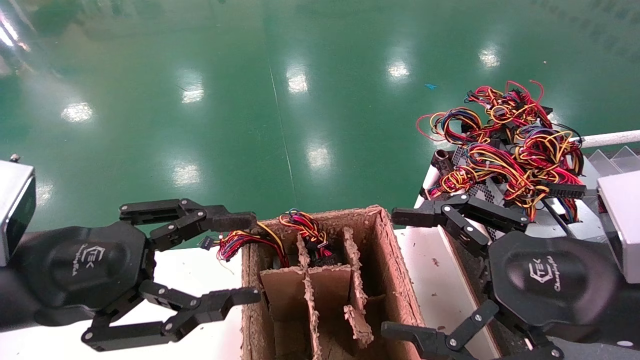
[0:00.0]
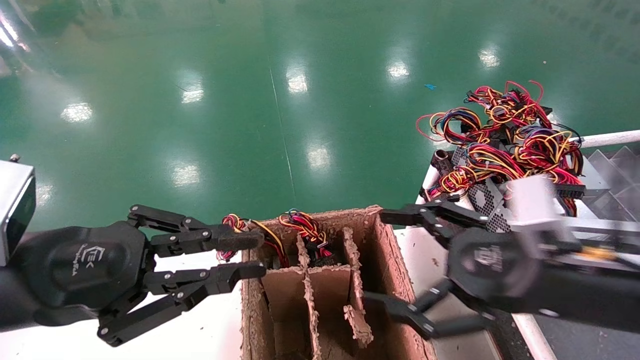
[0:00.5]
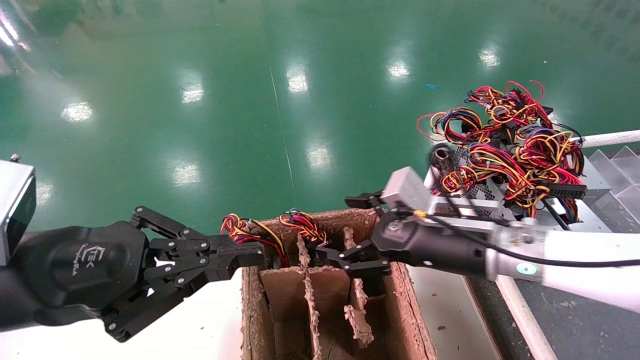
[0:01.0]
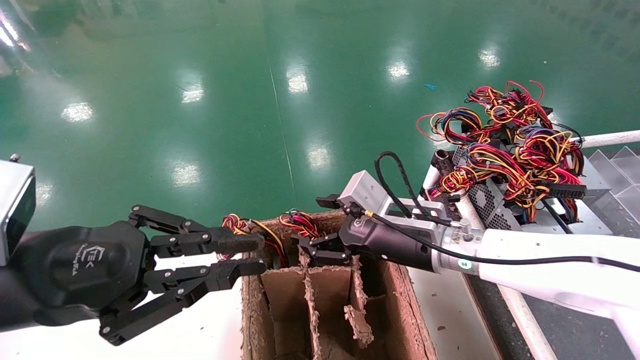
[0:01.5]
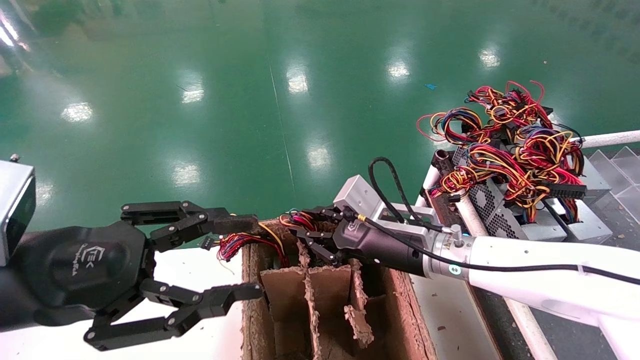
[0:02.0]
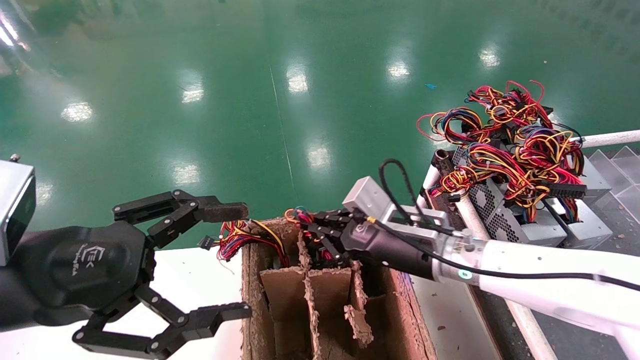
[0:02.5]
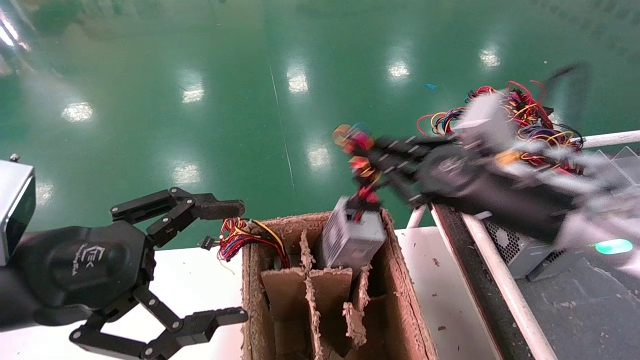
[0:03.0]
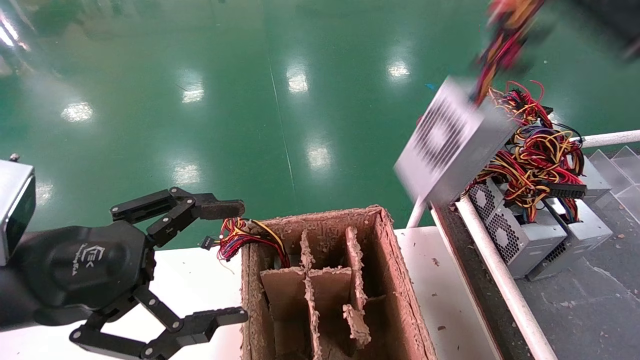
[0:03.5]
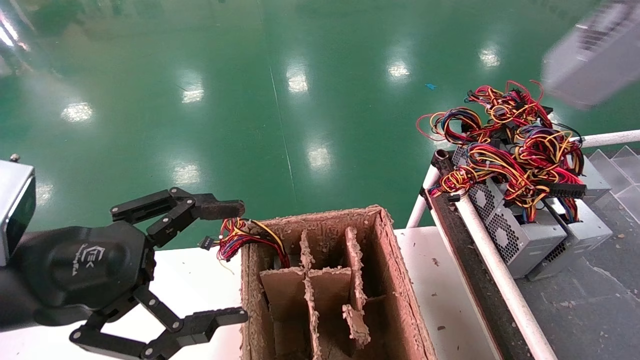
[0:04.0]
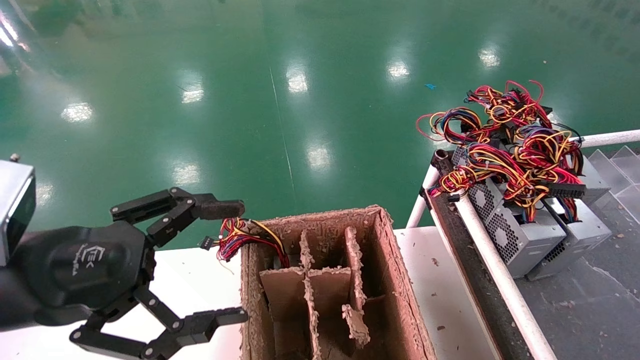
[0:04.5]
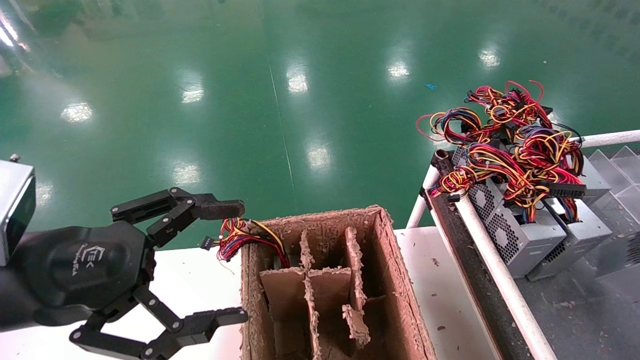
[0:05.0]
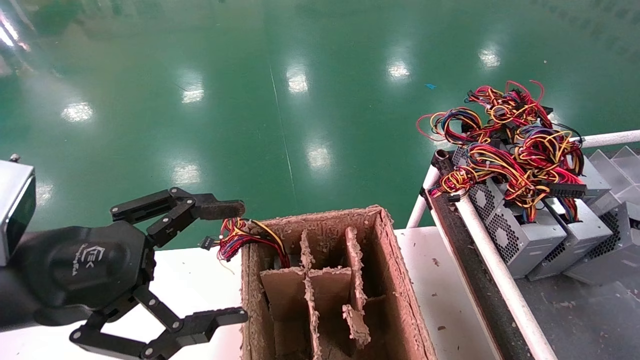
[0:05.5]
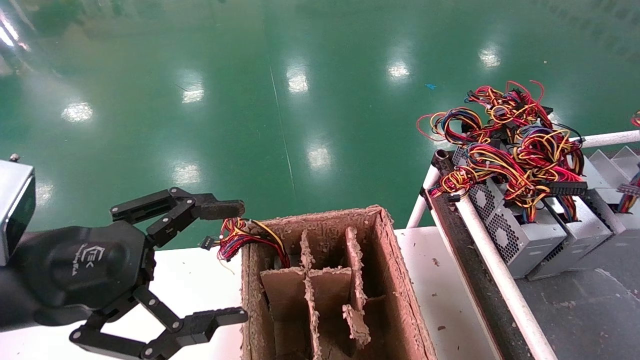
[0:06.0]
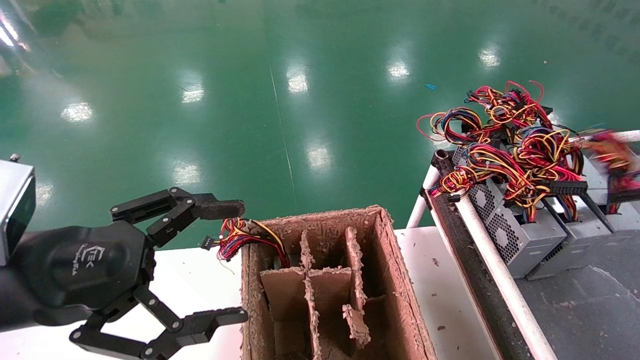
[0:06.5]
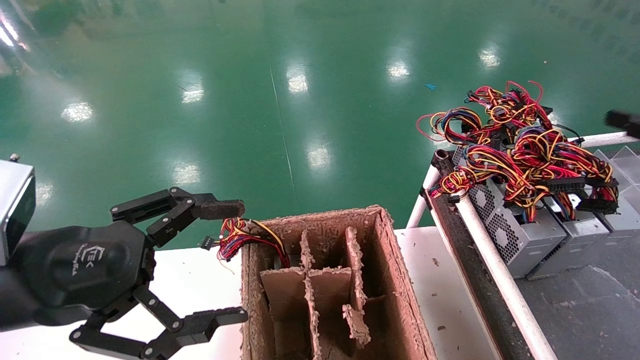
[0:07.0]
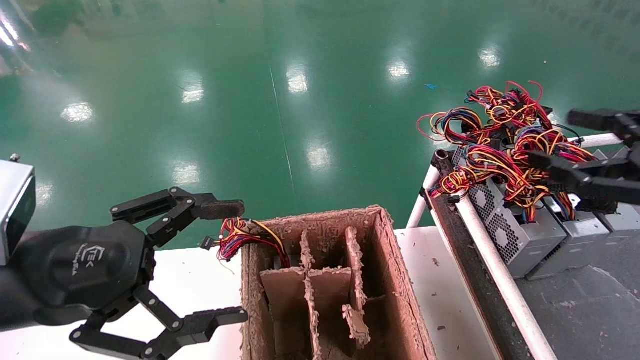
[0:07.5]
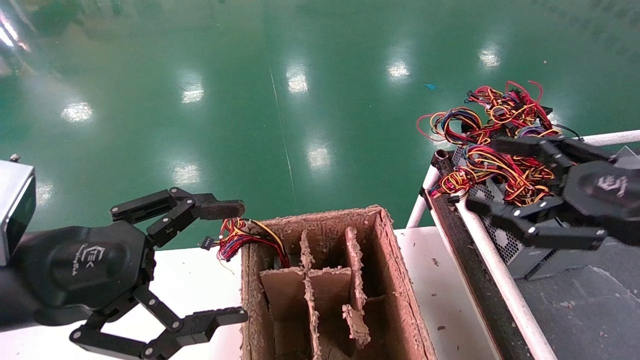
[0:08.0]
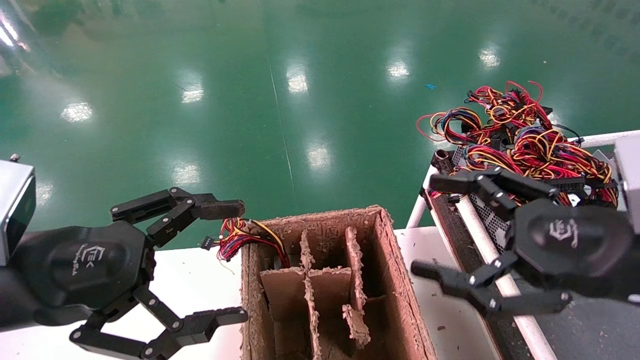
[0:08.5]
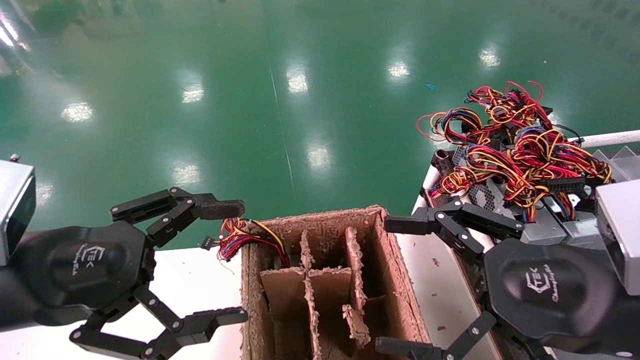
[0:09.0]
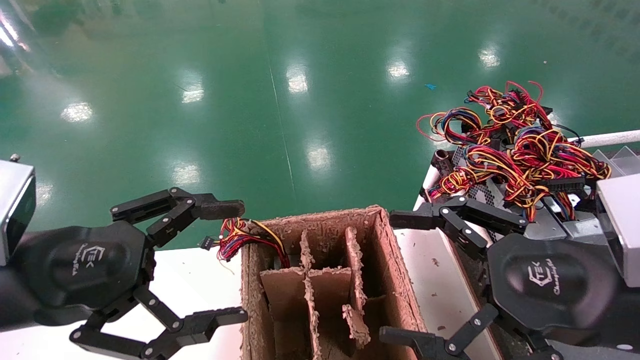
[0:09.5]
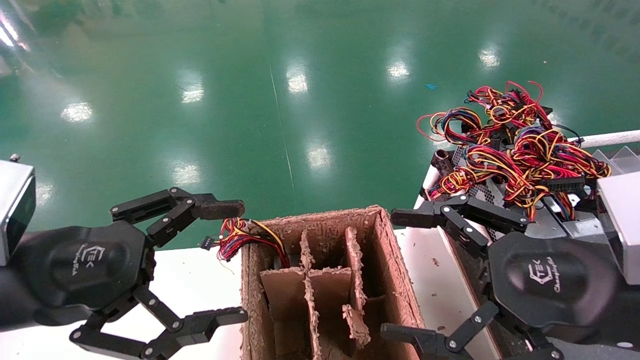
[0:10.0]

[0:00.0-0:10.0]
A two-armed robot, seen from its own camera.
Step, 0:01.0 to 0:03.0: Grab and lift the power supply from the large box.
Step, 0:03.5 to 0:06.5: Place the power supply on the operating table.
0:00.0 to 0:02.0: The left gripper closes, then reopens, while the right gripper is displaced forward and to the left by approximately 20 cm, and closes its fingers.
0:02.0 to 0:04.0: The left gripper opens up. The right gripper is displaced to the right, upward and backward by some 50 cm, and closes its fingers.
0:04.0 to 0:06.0: The right gripper moves downward and to the right, about 20 cm.
0:06.0 to 0:08.0: The right gripper goes about 15 cm to the left, and opens.
0:08.0 to 0:10.0: The right gripper is displaced to the left by roughly 10 cm.

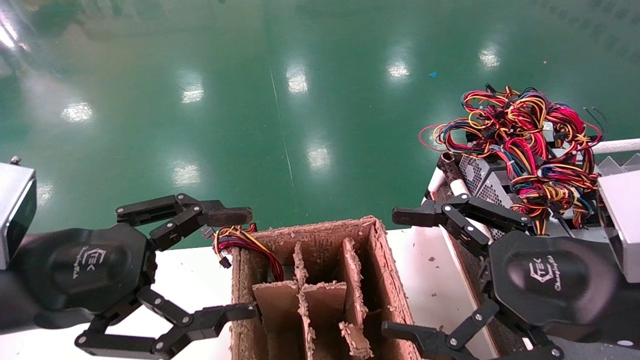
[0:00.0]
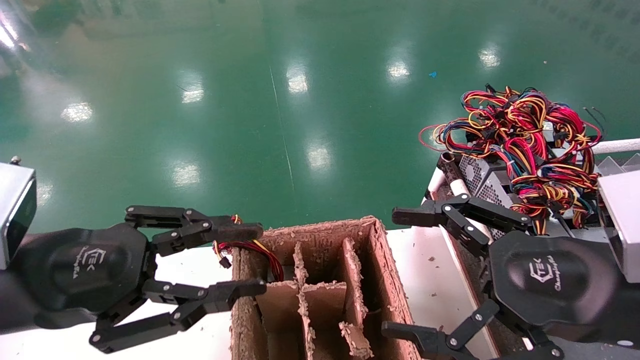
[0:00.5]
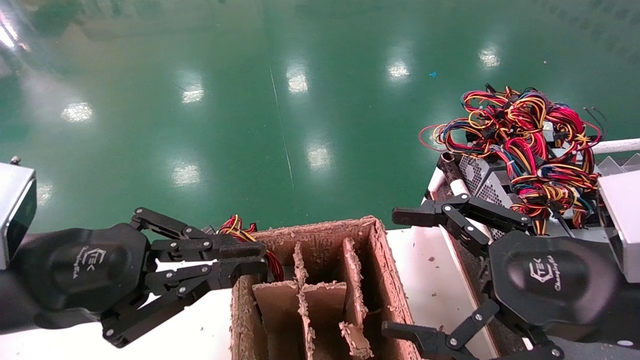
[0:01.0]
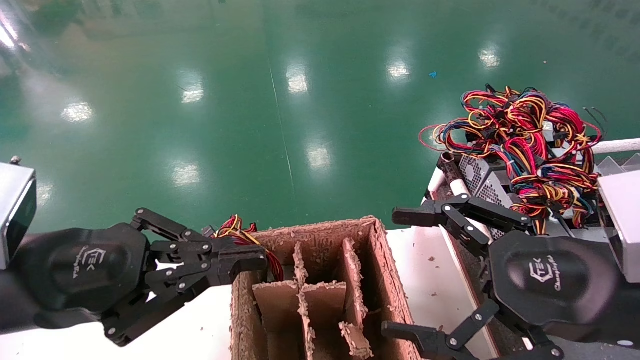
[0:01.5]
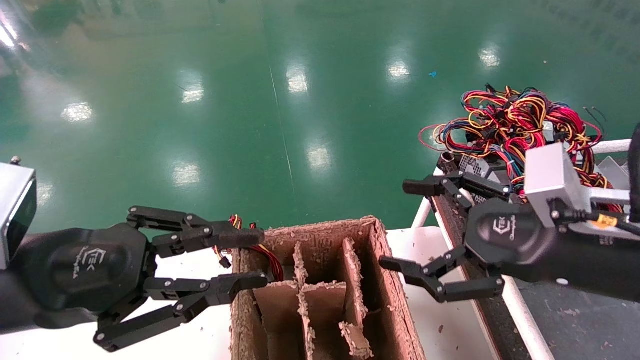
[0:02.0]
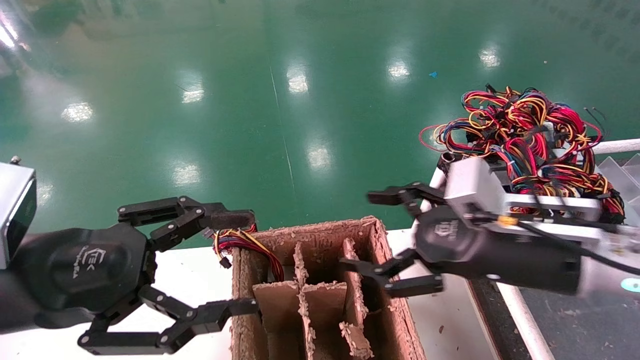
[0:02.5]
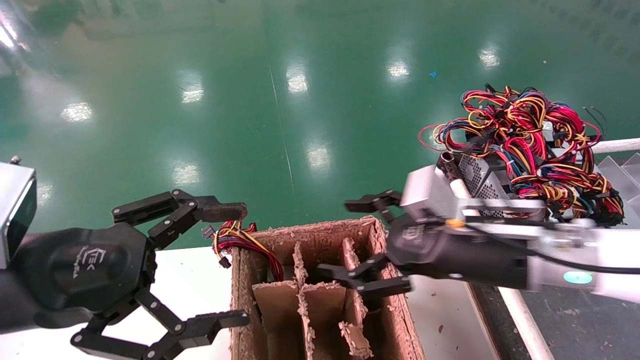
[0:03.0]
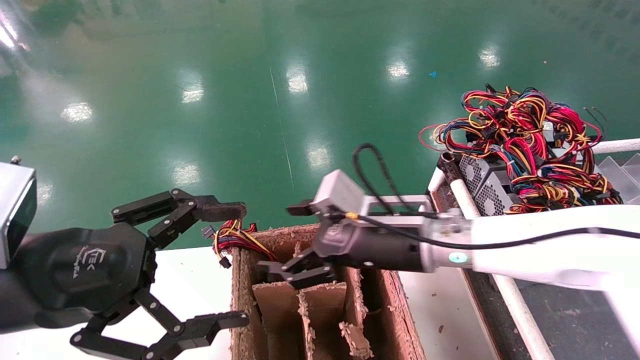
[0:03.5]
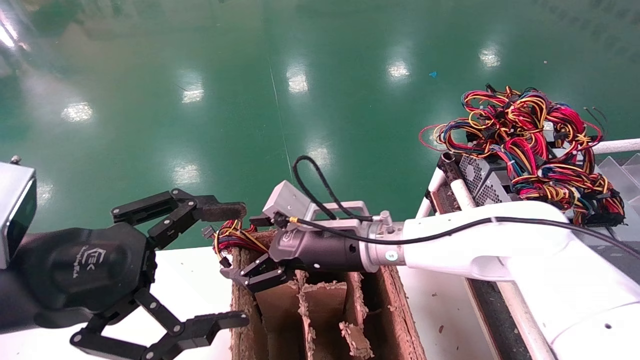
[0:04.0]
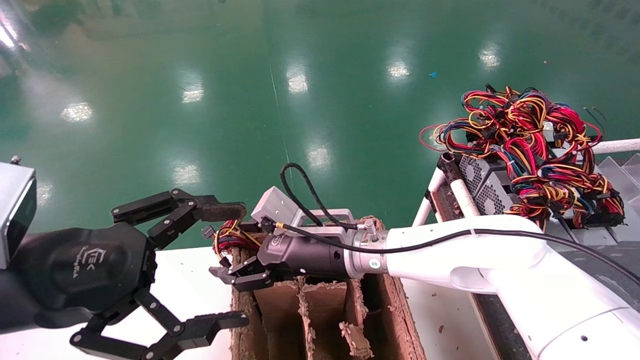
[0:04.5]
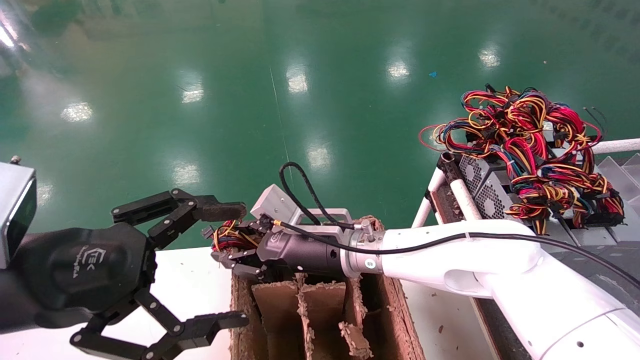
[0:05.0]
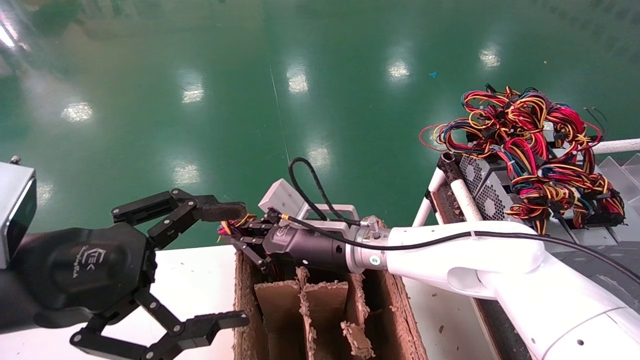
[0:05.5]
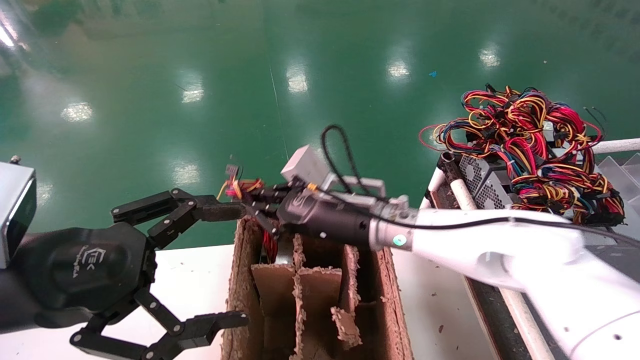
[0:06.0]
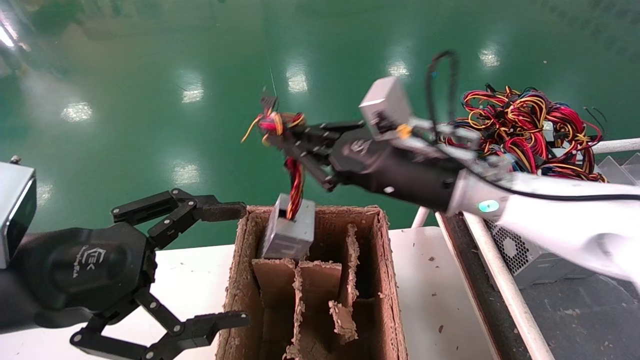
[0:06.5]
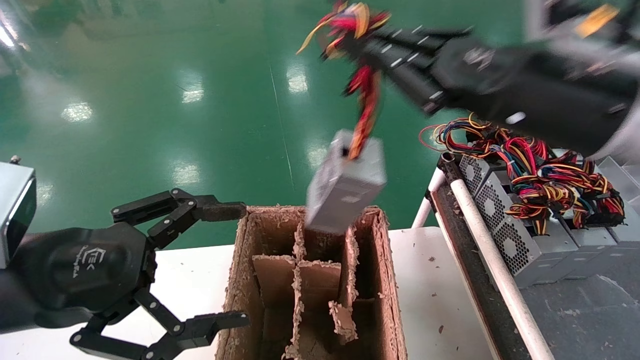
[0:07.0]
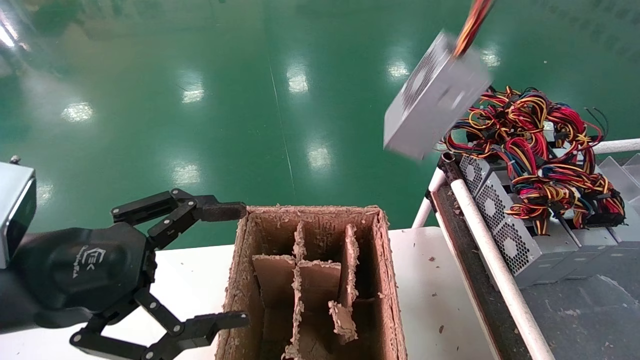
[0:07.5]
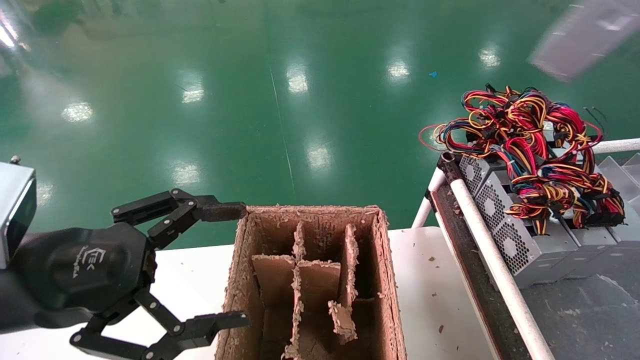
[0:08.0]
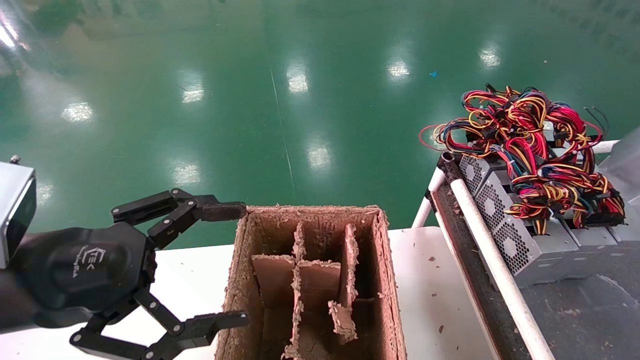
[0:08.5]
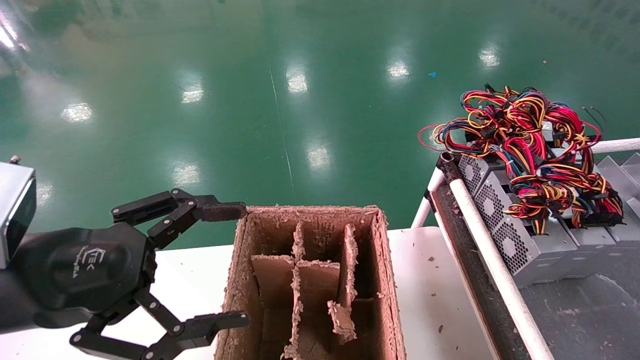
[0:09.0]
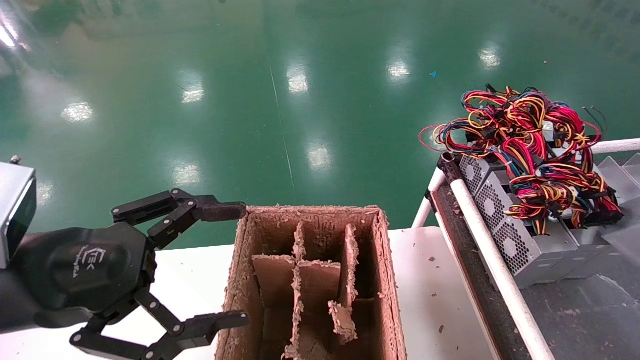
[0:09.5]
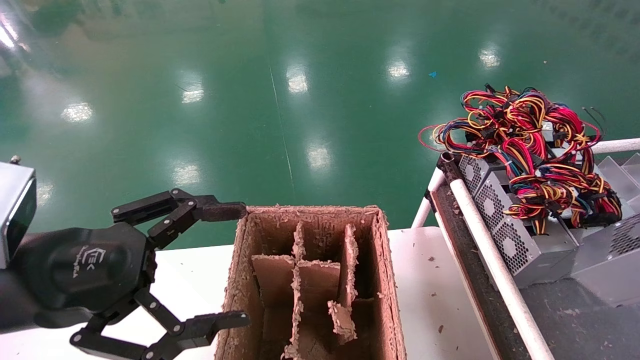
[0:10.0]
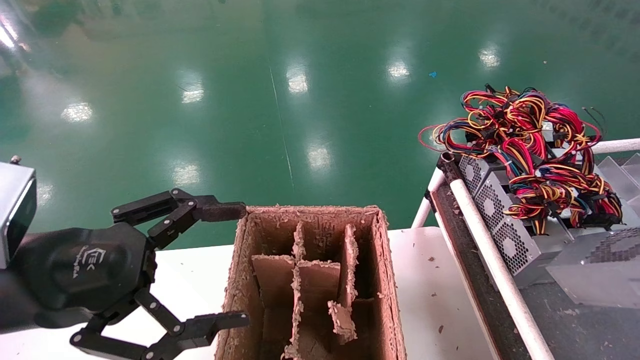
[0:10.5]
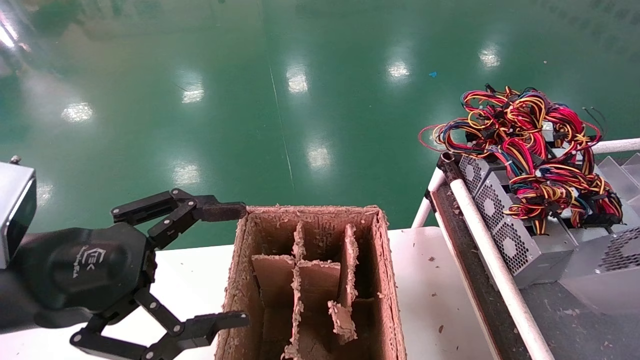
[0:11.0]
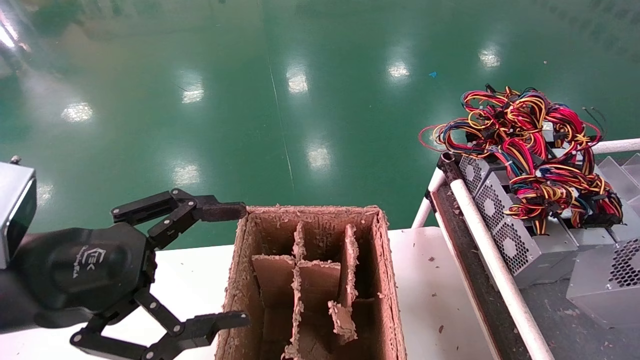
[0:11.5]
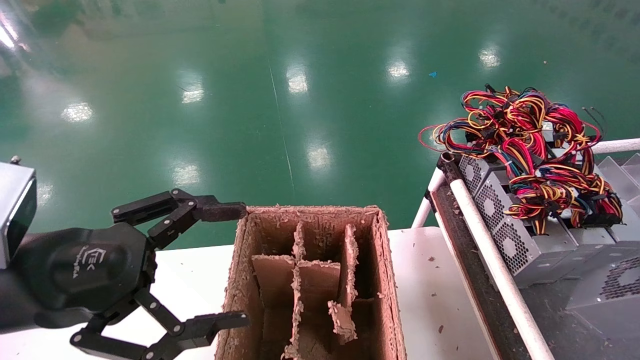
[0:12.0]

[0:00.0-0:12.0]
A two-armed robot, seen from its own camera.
Step, 0:02.0 to 0:07.0: Grab and lift the power supply from the large box.
0:00.0 to 0:02.0: The left gripper closes its fingers.
0:02.0 to 0:04.0: The right gripper moves to the left and forward, approximately 25 cm. The left gripper opens.
0:04.0 to 0:06.0: The right gripper closes its fingers.
0:06.0 to 0:08.0: The right gripper goes roughly 50 cm to the right, upward and backward.
0:08.0 to 0:10.0: The right gripper shifts some 20 cm downward and backward.
0:10.0 to 0:12.0: The right gripper heads downward, covering about 10 cm.
